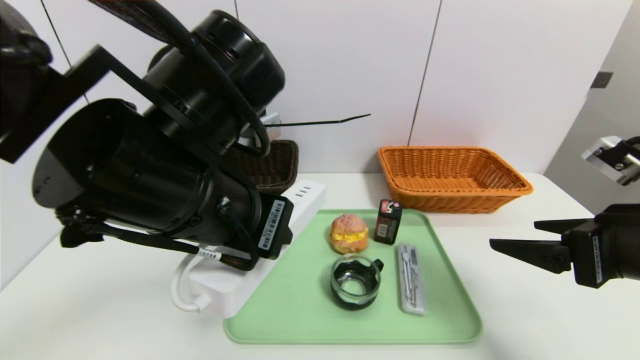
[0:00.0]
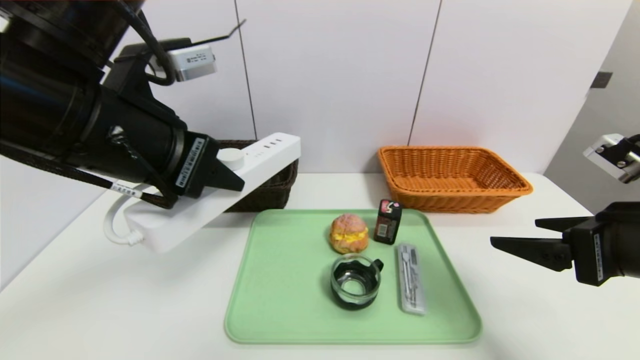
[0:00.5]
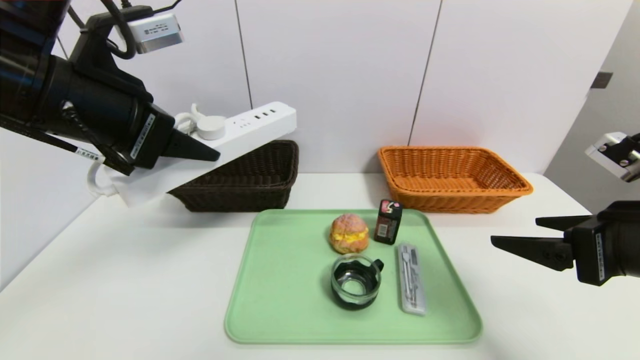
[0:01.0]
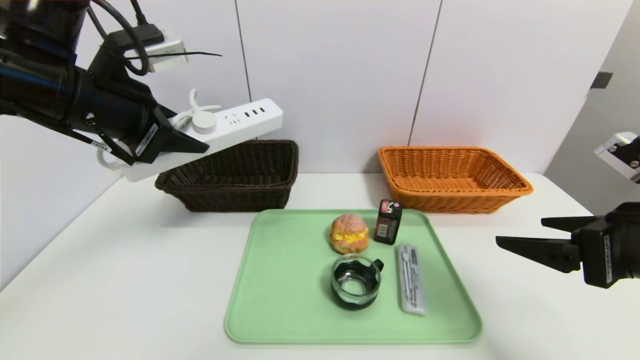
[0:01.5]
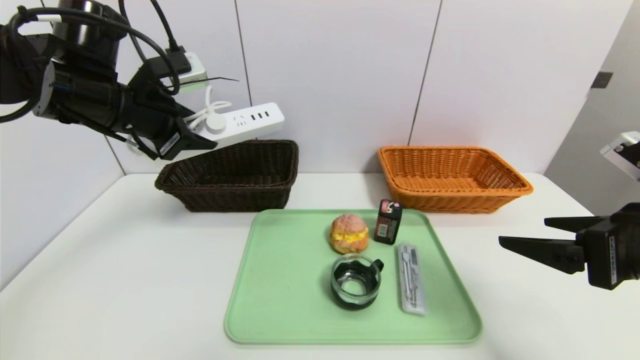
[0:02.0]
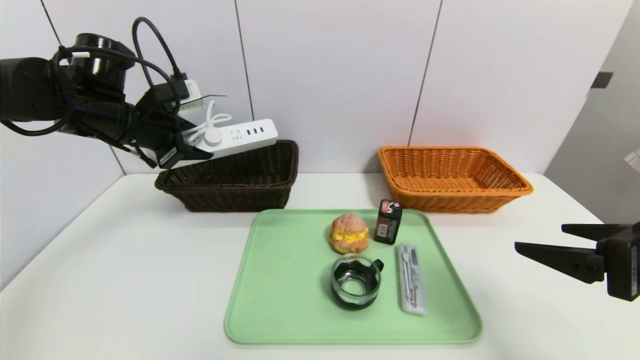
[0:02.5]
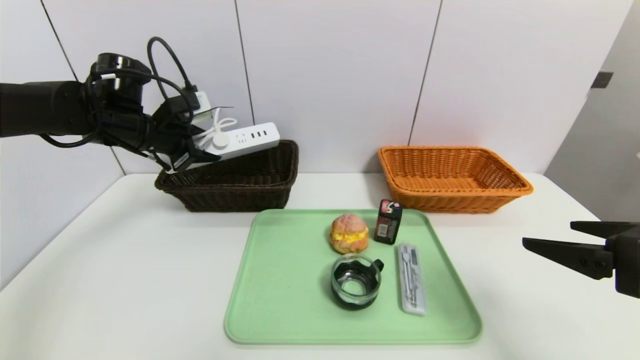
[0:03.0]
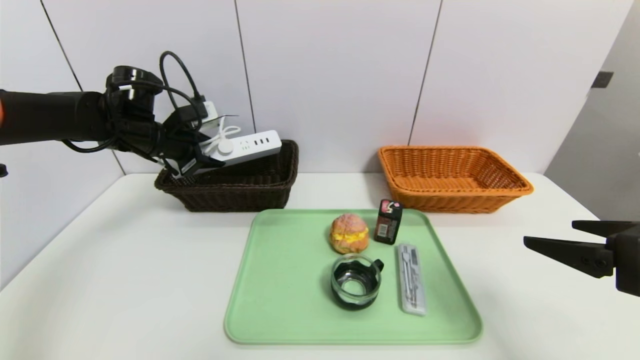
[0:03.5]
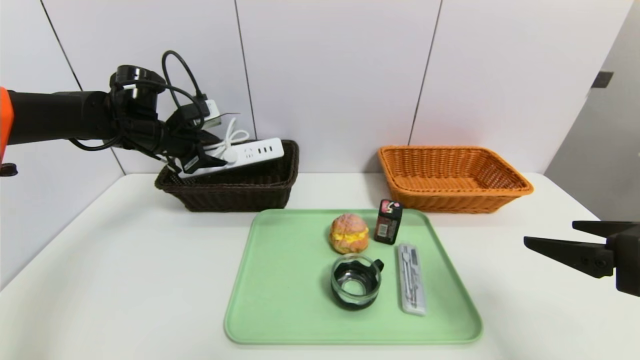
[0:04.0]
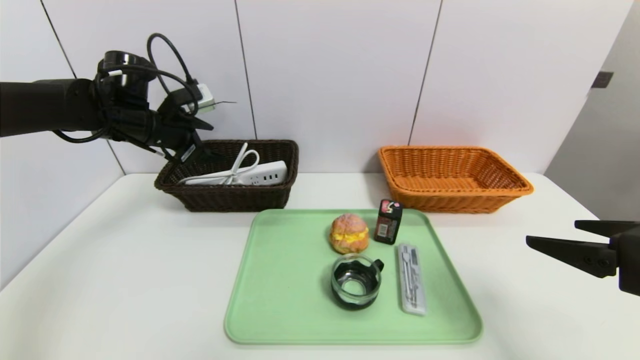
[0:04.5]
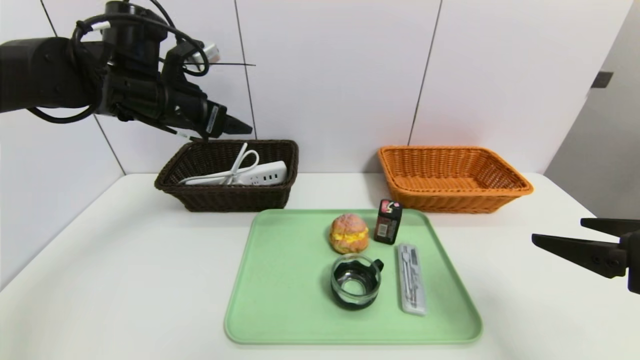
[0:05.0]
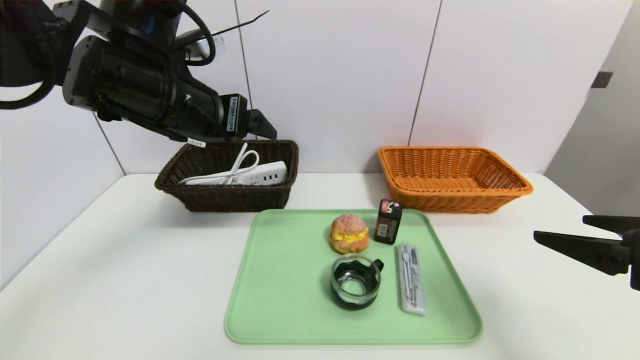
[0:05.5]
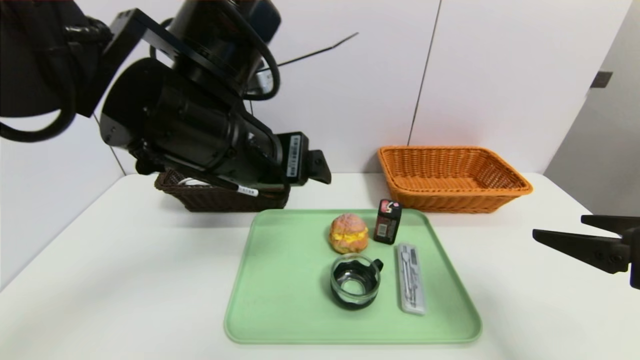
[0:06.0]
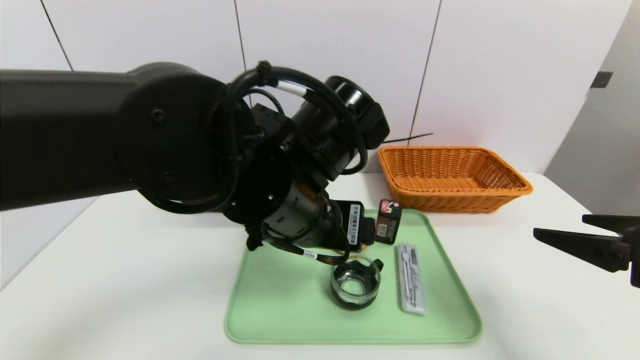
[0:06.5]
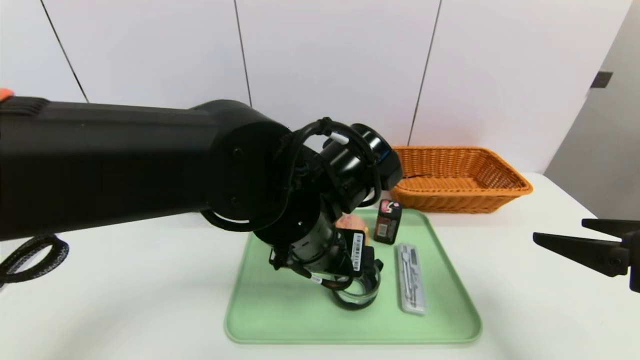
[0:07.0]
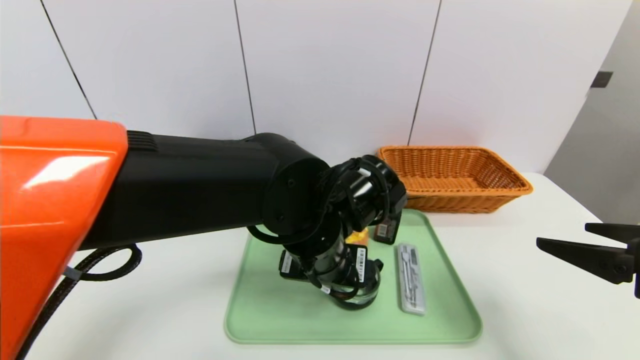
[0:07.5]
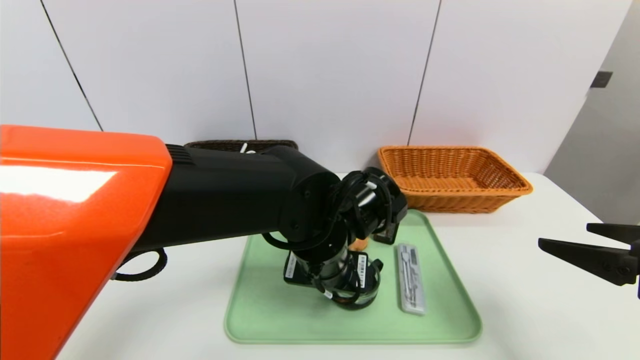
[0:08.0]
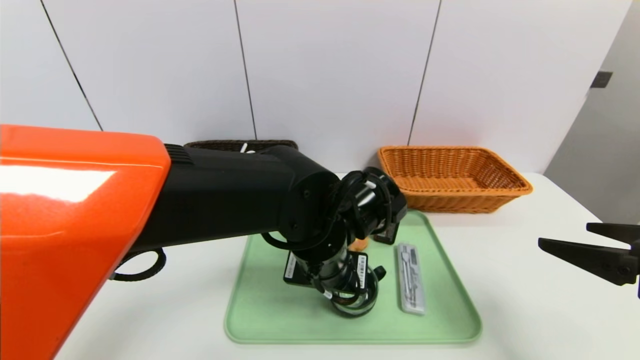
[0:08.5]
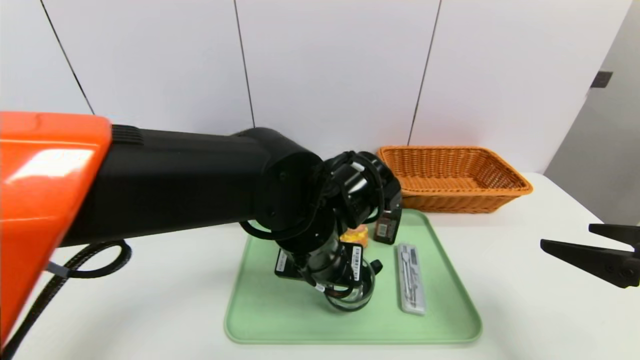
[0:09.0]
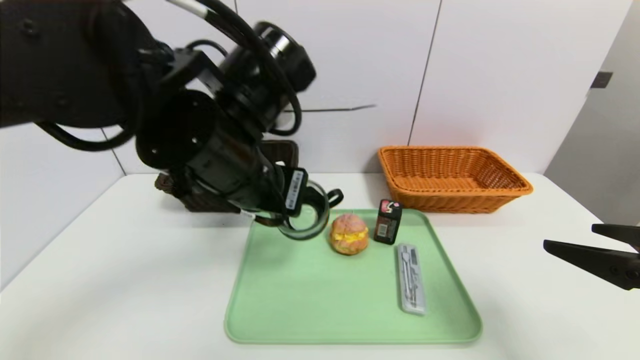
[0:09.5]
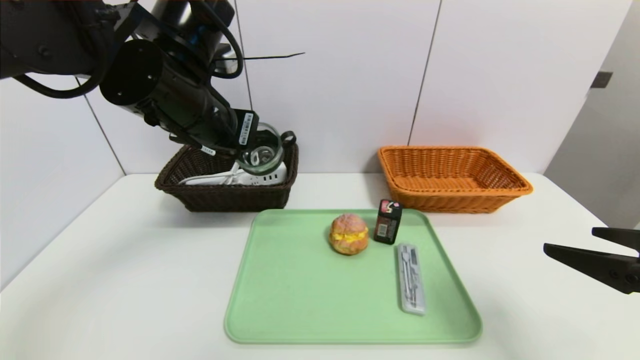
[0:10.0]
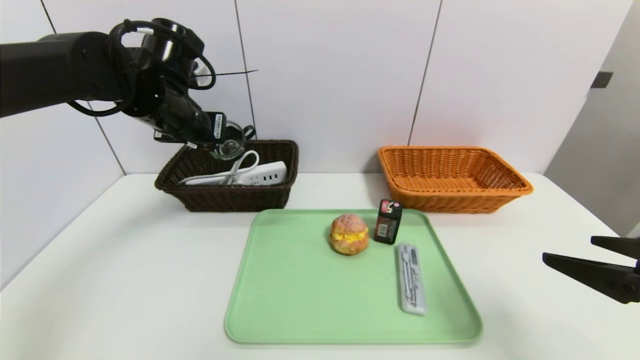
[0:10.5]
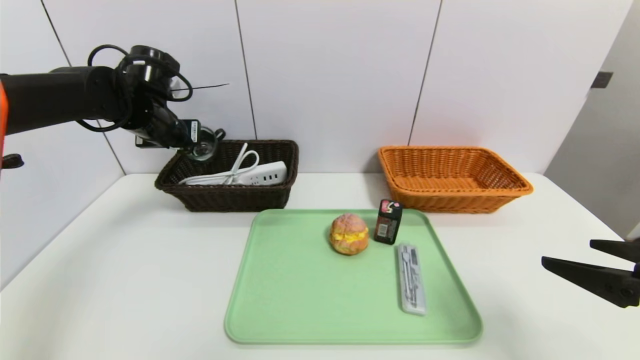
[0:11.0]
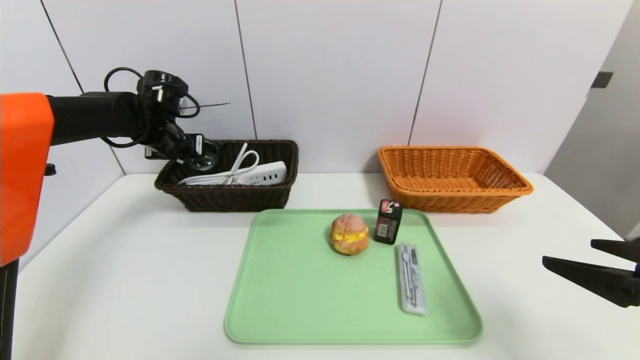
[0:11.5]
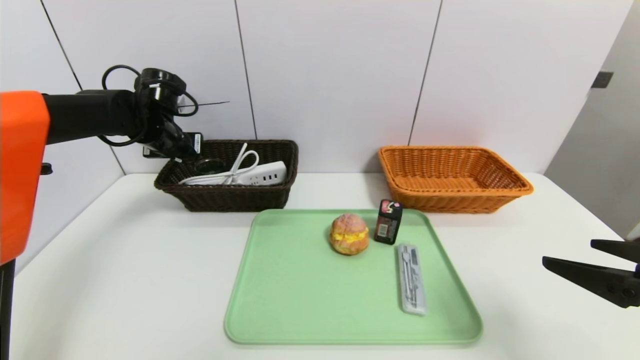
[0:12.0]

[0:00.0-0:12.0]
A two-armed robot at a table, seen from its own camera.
Task of the whole recording: place the food in the right basket with the right gripper, and place the non food items in the left basket with the left gripper.
Step, 0:00.0 to 0:04.5: Grasp the power strip and put it in the left basket.
Step, 0:05.0 to 0:12.0: Grasp the black glass cup and put it in the left basket.
0:00.0 to 0:02.0: The left gripper heads forward and to the left, covering some 20 cm.
0:02.0 to 0:04.0: The left gripper heads forward and downward, covering roughly 10 cm.
0:04.0 to 0:06.0: The left gripper shifts some 30 cm backward and to the right, and opens up.
0:06.0 to 0:08.0: The left gripper heads downward and to the right, covering approximately 15 cm.
0:08.0 to 0:10.0: The left gripper shifts approximately 20 cm to the left and upward, and closes up.
0:10.0 to 0:12.0: The left gripper goes roughly 20 cm forward, to the left and downward, and opens its fingers.

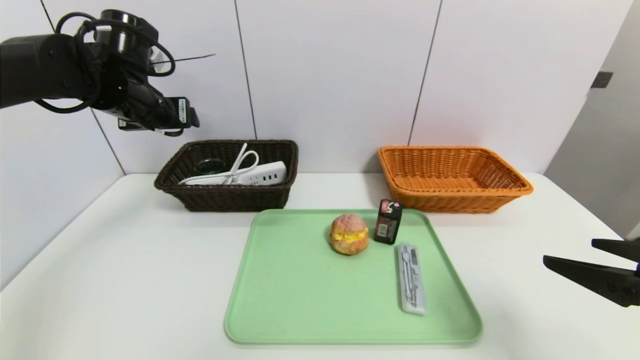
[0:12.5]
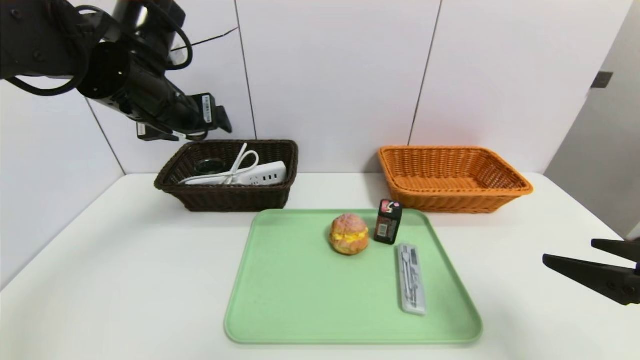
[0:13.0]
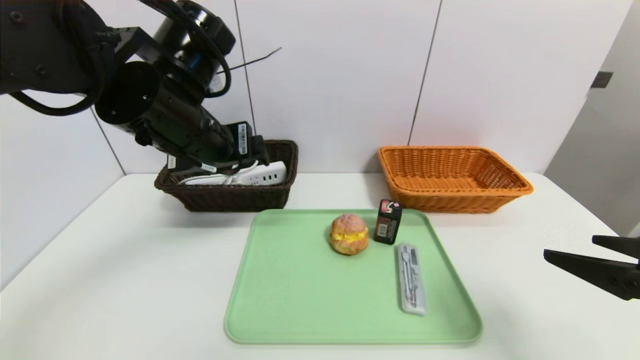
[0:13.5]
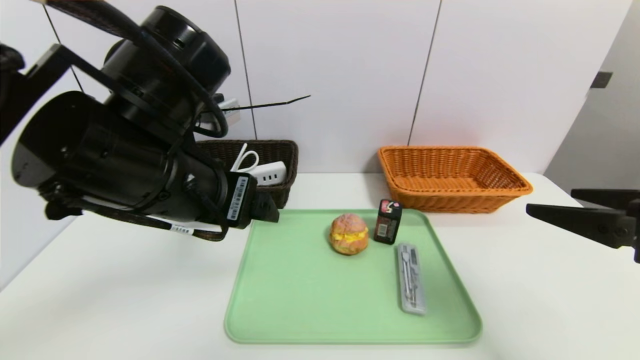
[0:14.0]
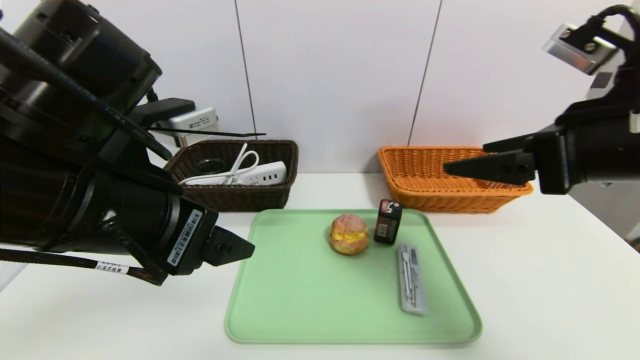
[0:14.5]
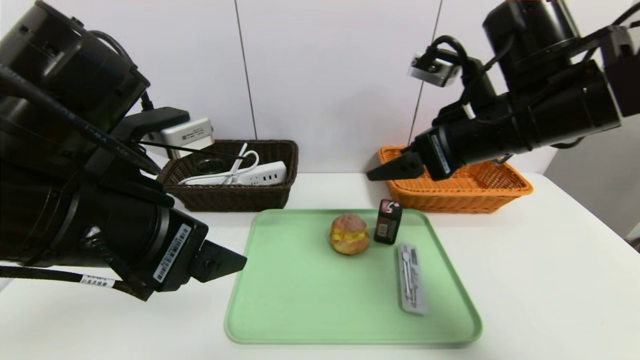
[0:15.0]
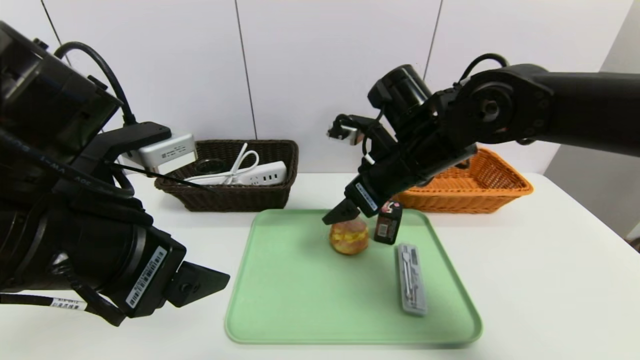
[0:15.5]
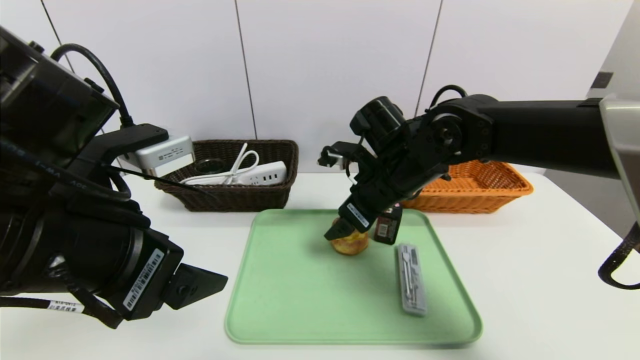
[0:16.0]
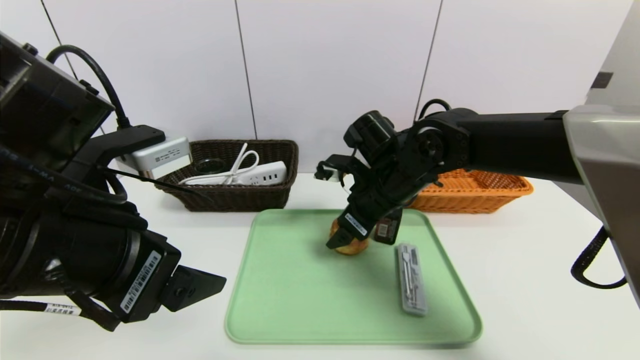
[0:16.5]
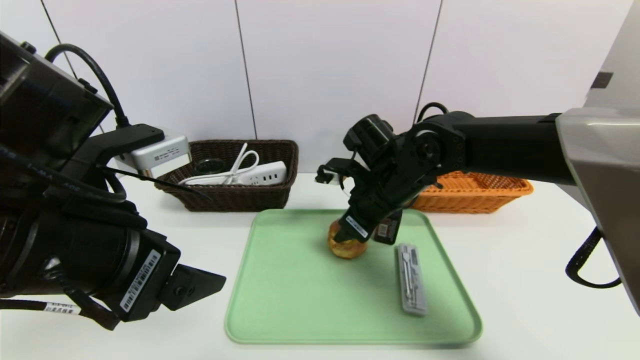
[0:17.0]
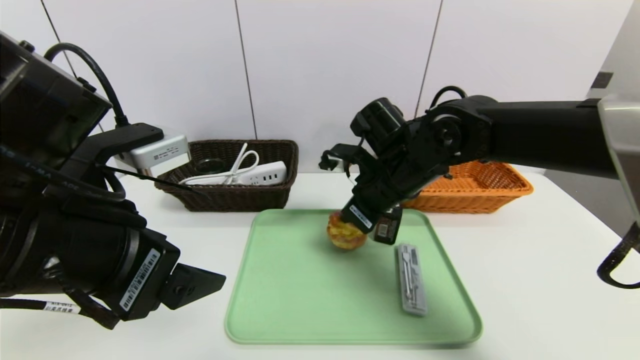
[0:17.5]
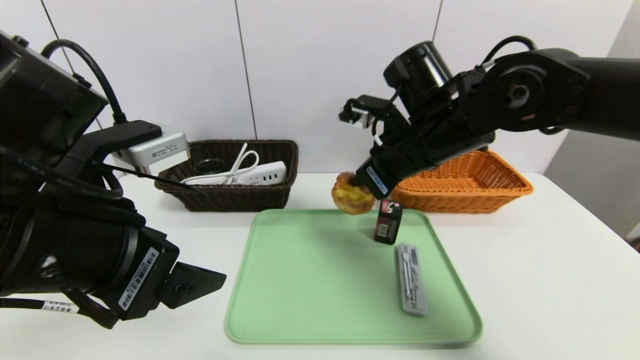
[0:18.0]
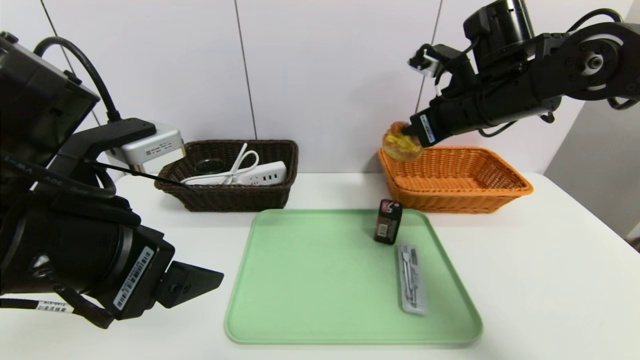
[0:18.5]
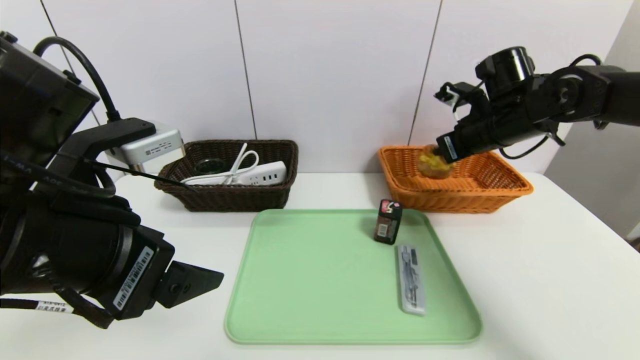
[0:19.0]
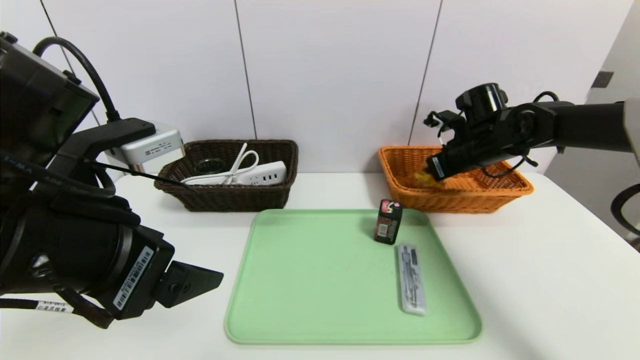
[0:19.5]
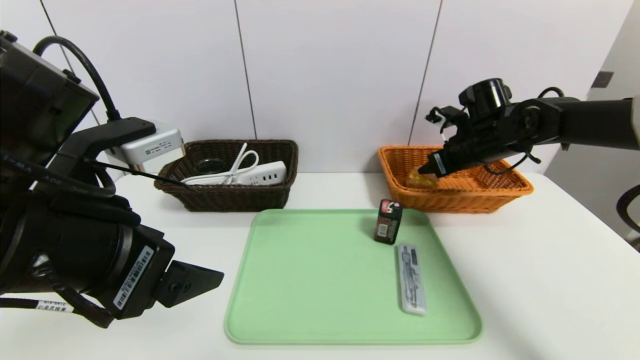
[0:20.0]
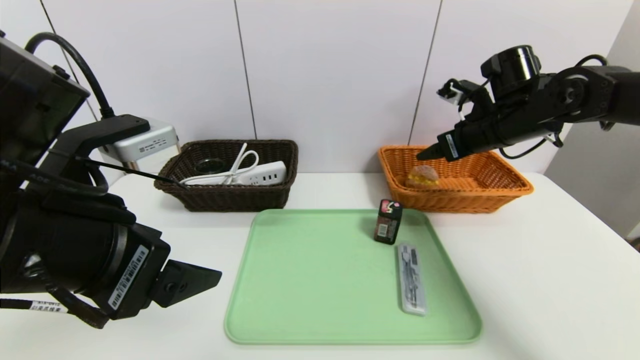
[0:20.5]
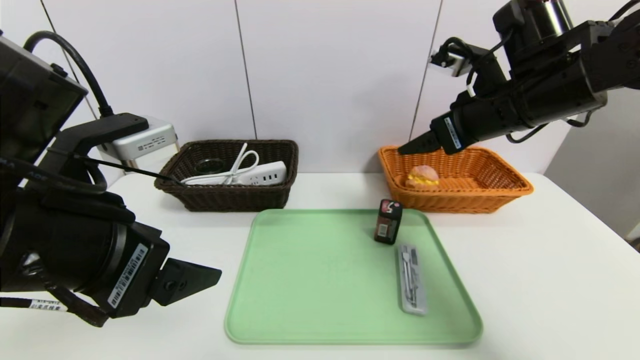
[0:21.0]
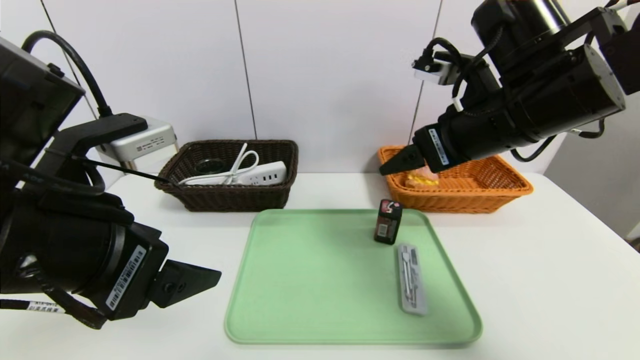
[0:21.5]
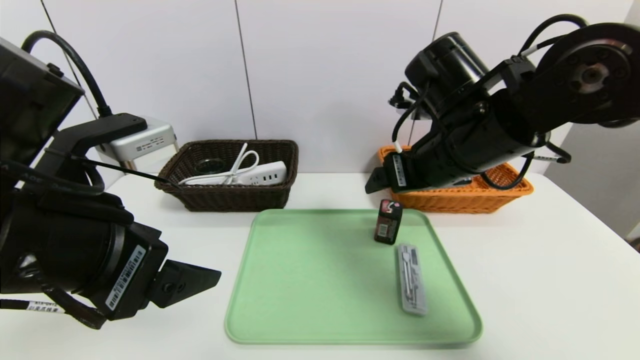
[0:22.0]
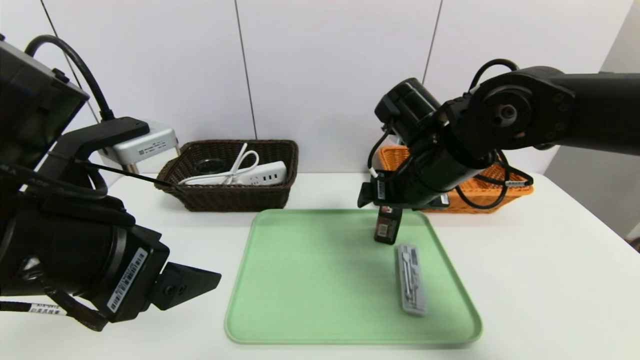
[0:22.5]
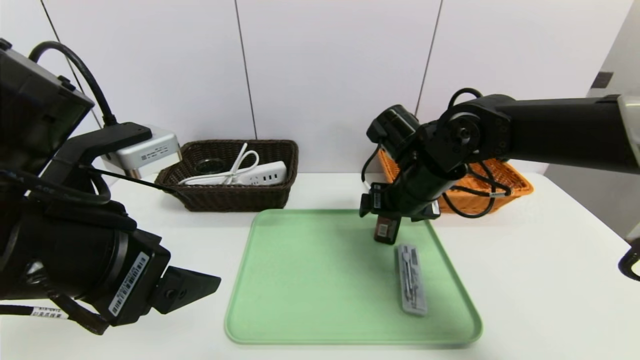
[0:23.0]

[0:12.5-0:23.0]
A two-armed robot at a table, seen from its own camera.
Task of the whole recording: place the food in the right basket with the right gripper, and place the non food items in the left basket with the left gripper.
Step, 0:12.5 to 0:20.5: Grasp the egg yolk pastry and put it in the right basket.
0:12.5 to 0:14.5: The right gripper moves forward, upward and to the left, about 15 cm. Meanwhile the left gripper heads backward and to the right, covering roughly 25 cm.
0:14.5 to 0:16.5: The right gripper travels to the left, forward and downward by some 25 cm.
0:16.5 to 0:19.0: The right gripper travels to the right by about 15 cm, and closes its fingers.
0:19.0 to 0:21.0: The right gripper goes approximately 10 cm backward and upward, and opens.
0:21.0 to 0:23.0: The right gripper travels downward and to the left by about 15 cm.
